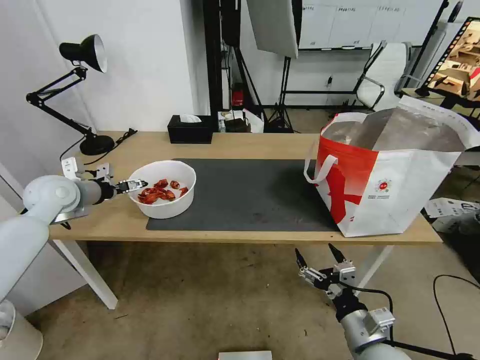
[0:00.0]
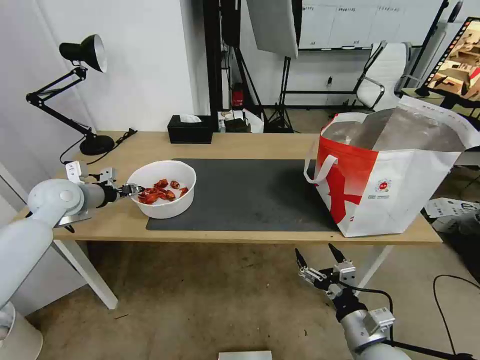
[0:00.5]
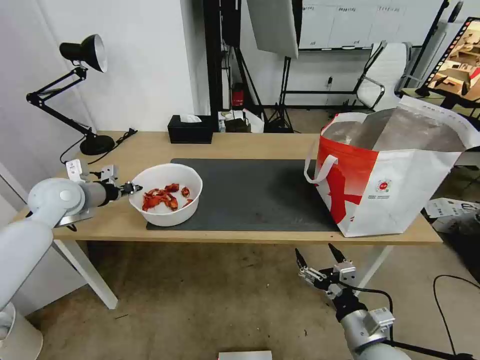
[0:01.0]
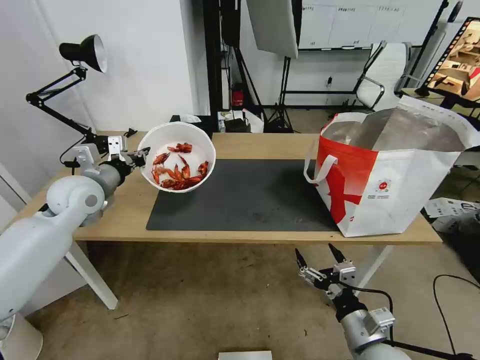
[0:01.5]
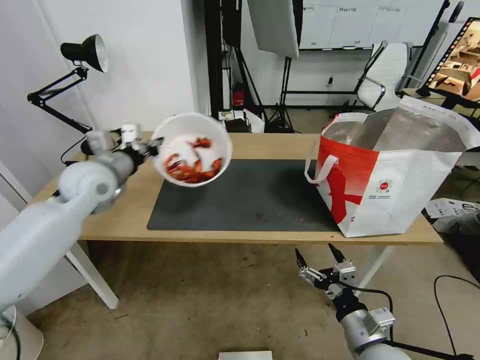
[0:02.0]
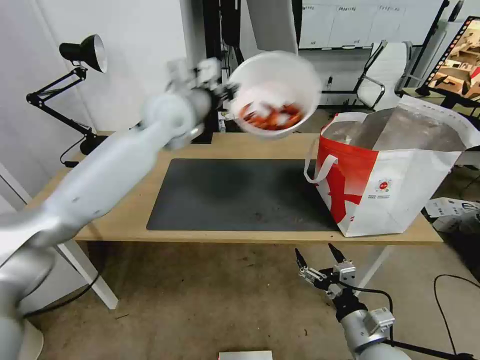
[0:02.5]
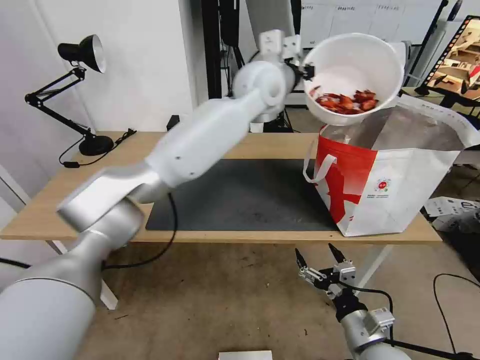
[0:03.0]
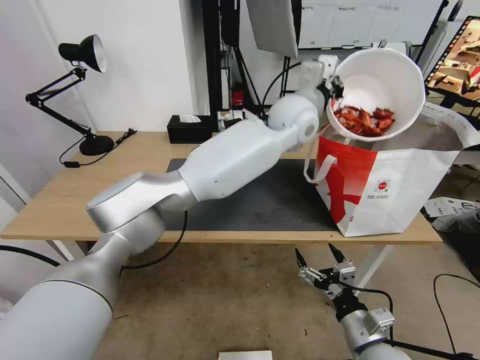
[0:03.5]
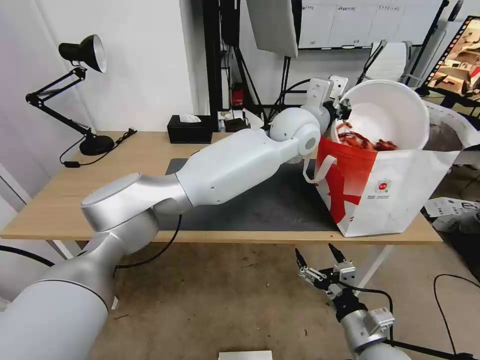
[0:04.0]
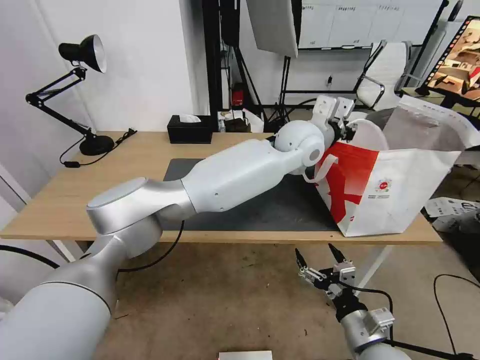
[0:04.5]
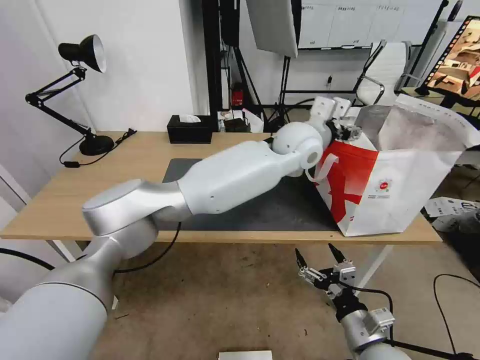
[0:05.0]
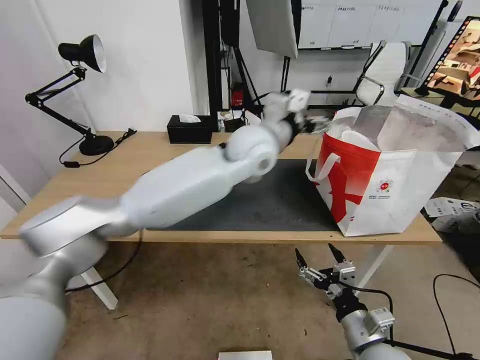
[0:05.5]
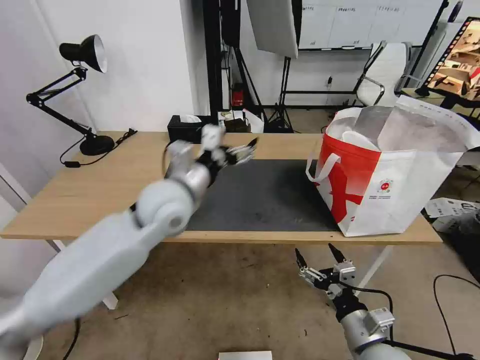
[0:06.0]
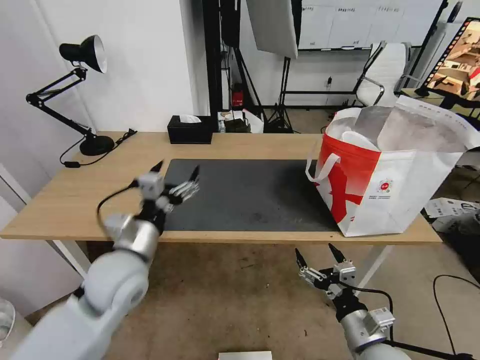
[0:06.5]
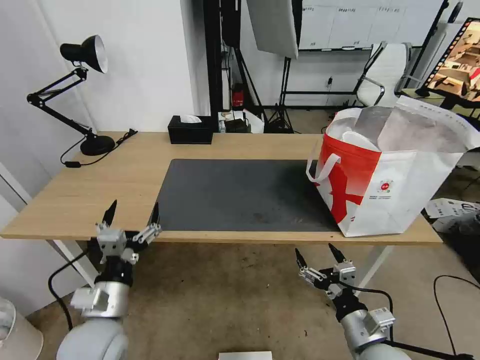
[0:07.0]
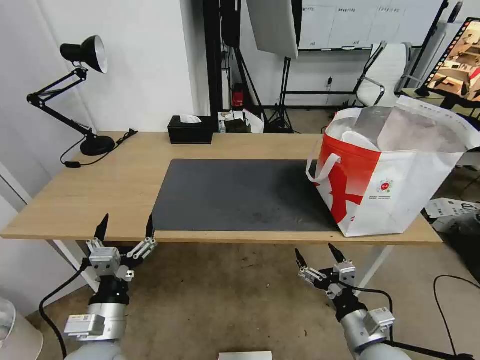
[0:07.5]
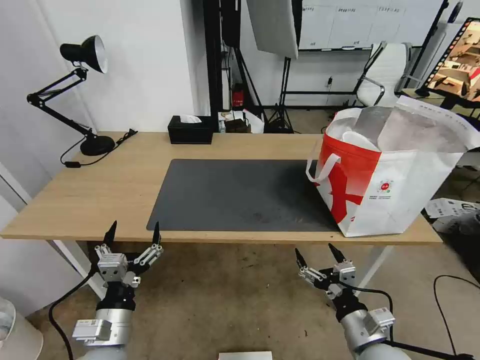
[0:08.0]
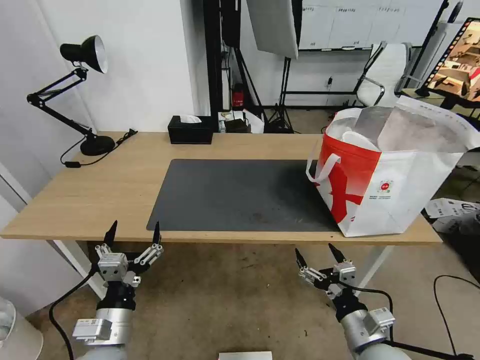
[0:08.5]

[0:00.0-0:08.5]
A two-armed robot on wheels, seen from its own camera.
Task of the whole recording: Pick up the trash from the table and place it into the takeout bag.
0:00.0 to 0:02.0: The left gripper travels to the right by about 10 cm, and closes.
0:02.0 to 0:04.0: The left gripper travels to the right by approximately 40 cm.
0:04.0 to 0:06.5: The left gripper shifts roughly 40 cm to the left, backward and downward, and opens.
0:06.5 to 0:08.5: The left gripper moves backward and downward, approximately 15 cm.
